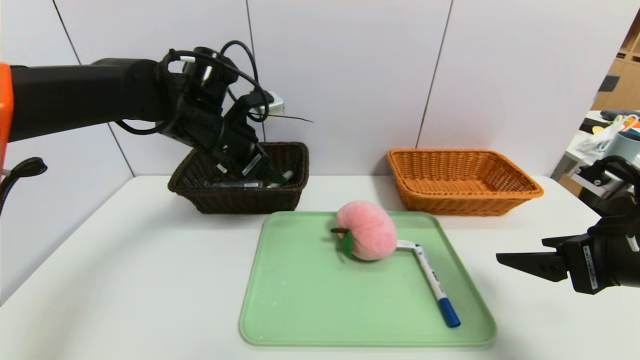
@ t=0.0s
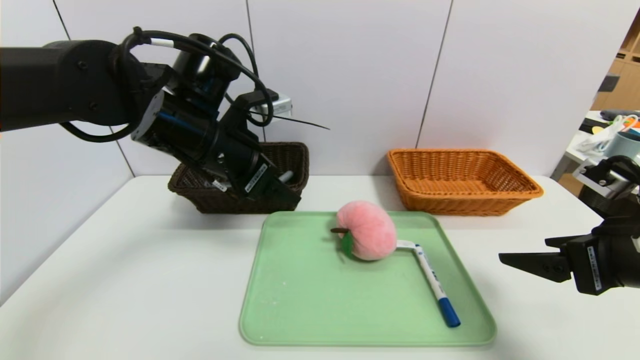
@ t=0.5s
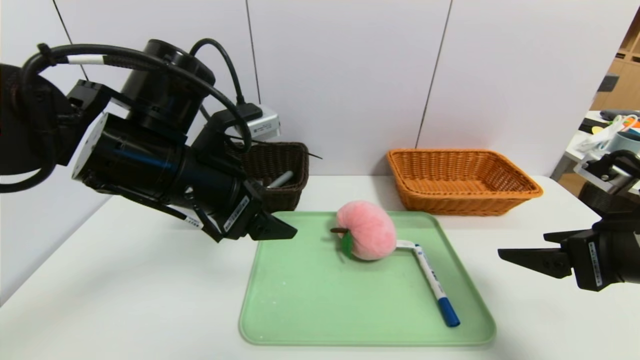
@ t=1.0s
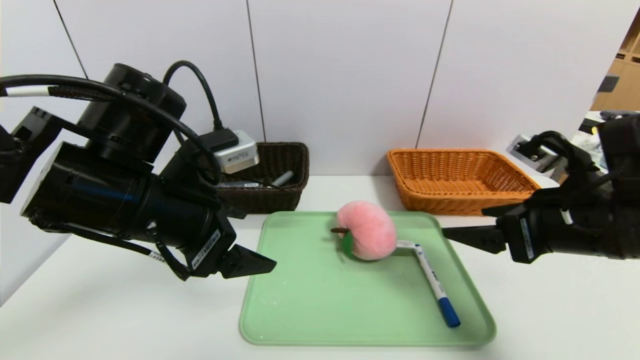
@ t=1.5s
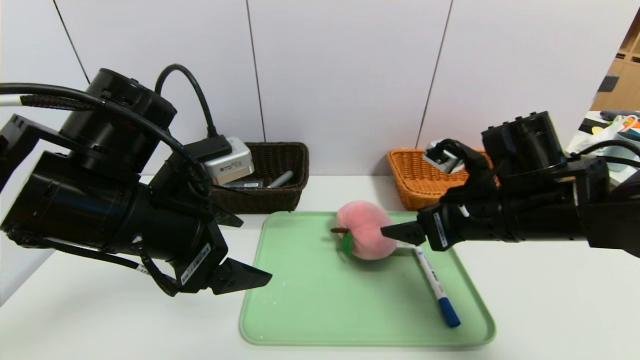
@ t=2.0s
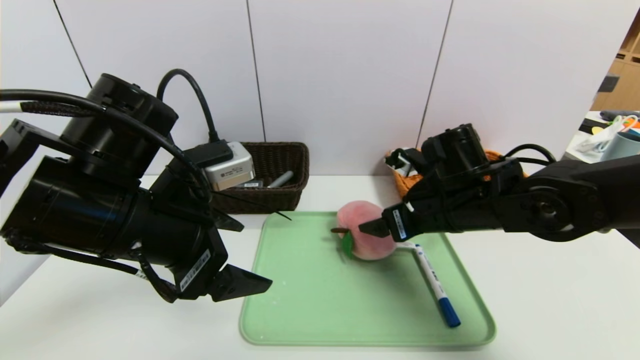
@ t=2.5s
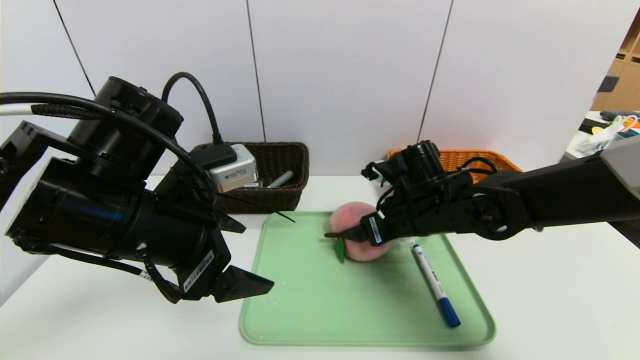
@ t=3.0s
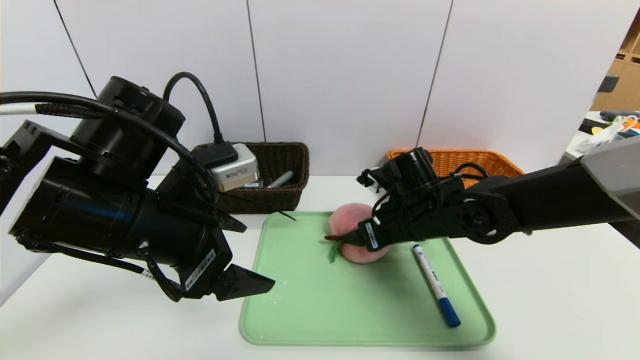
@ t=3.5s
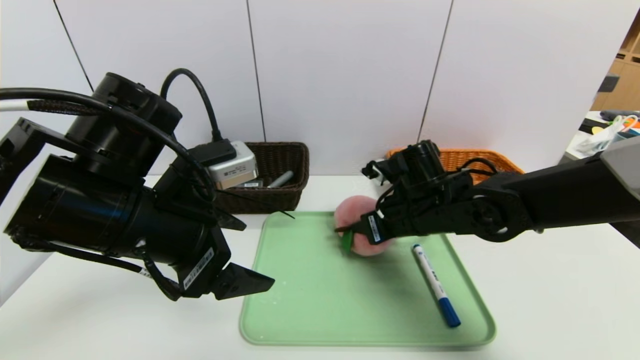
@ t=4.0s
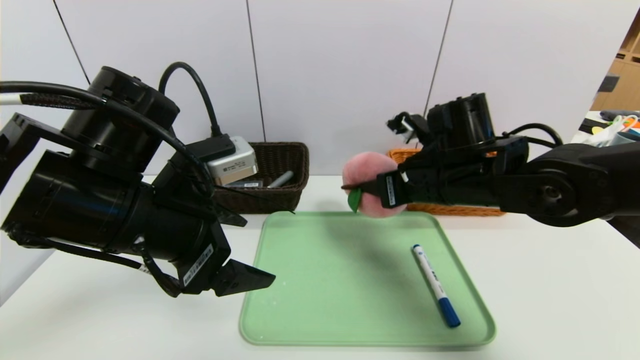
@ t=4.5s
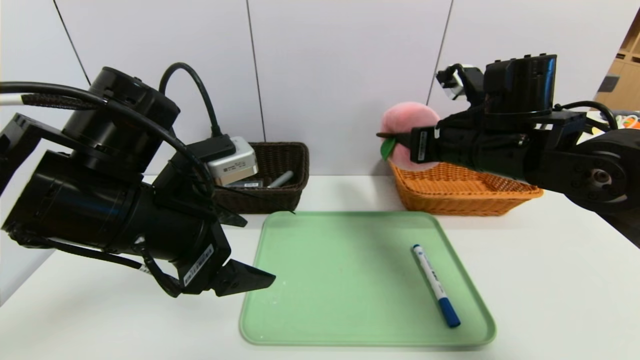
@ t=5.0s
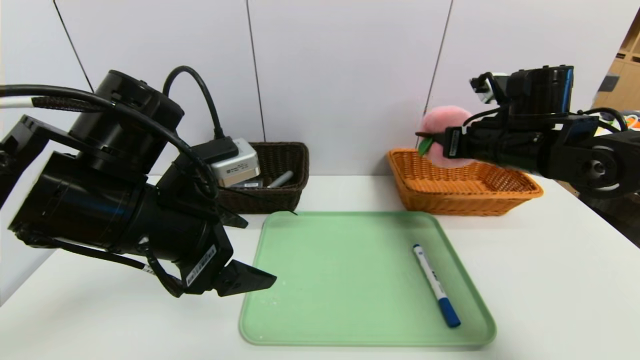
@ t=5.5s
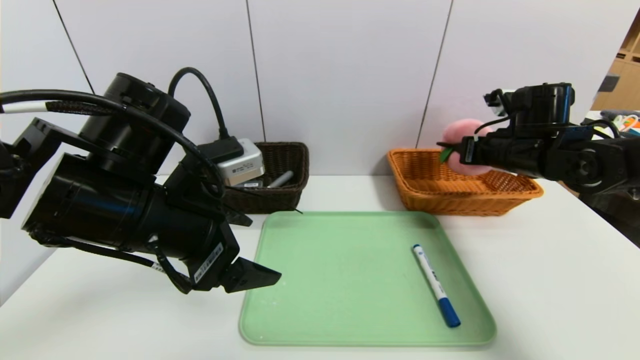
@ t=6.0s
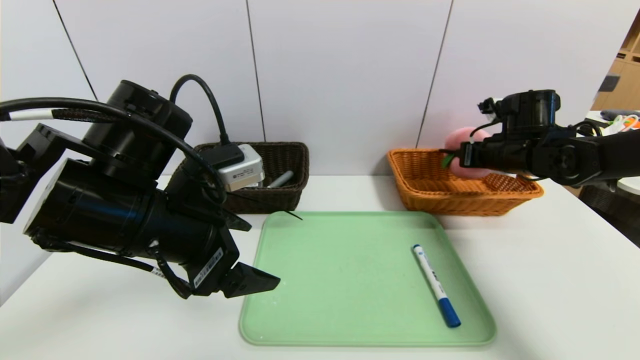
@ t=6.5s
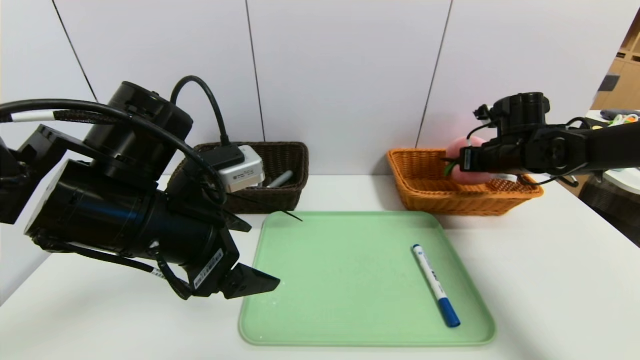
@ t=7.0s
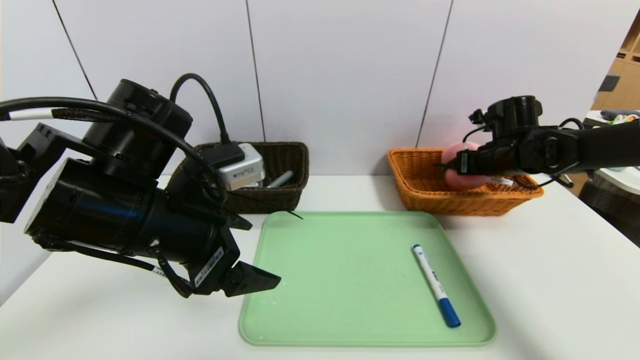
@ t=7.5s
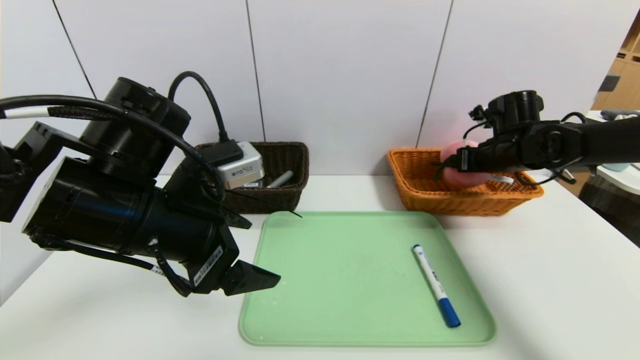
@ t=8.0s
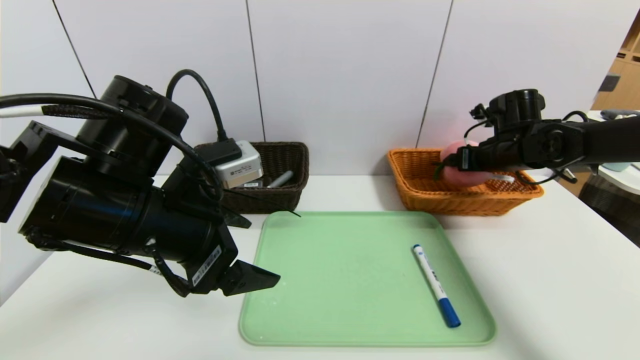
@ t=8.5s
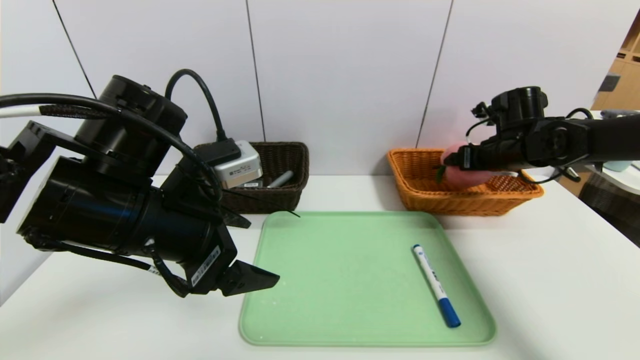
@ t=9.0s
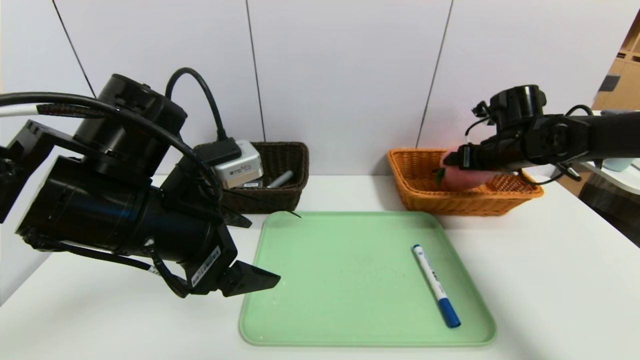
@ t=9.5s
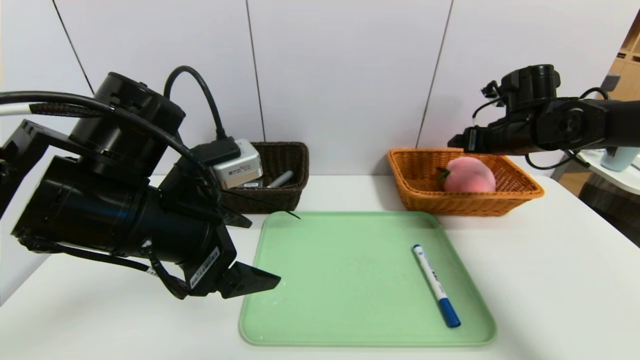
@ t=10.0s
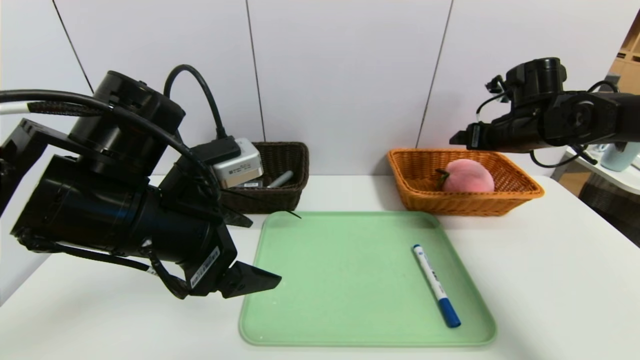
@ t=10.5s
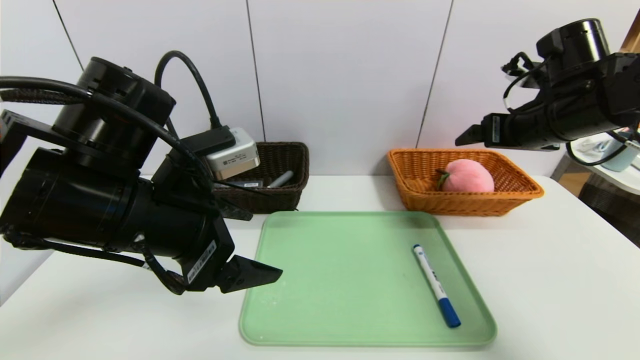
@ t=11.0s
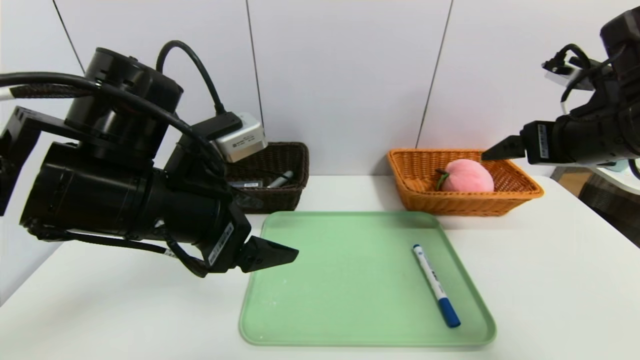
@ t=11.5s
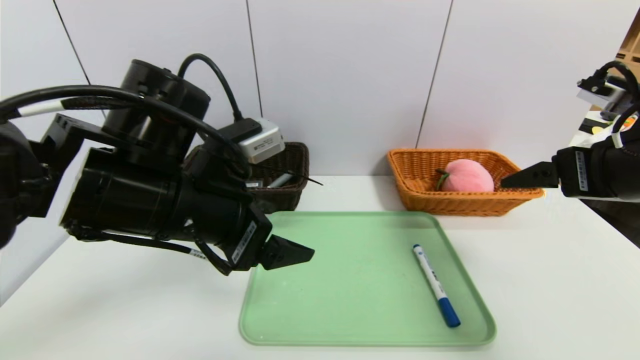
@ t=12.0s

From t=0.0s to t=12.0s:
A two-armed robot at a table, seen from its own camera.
Task of the whole recording: place the food in the right basket with the right gripper, and place the non food items in the left basket with the left gripper.
Step, from t=1.0s to t=11.5s: Grasp the peach doll and put it in the right basket.
From t=0.0s to t=2.0s: The right gripper shifts approximately 15 cm to the left and forward, while the left gripper is displaced backward by approximately 15 cm.
From t=2.0s to t=4.0s: The right gripper goes some 10 cm forward, to the left and downward, and closes its fingers.
From t=4.0s to t=6.0s: The right gripper heads to the right, covering approximately 15 cm.
From t=6.0s to t=8.0s: The right gripper ends up about 5 cm from where it was, and opens.
From t=8.0s to t=10.0s: The grippers make only small movements.
From t=10.0s to t=12.0s: The right gripper moves backward, some 20 cm.

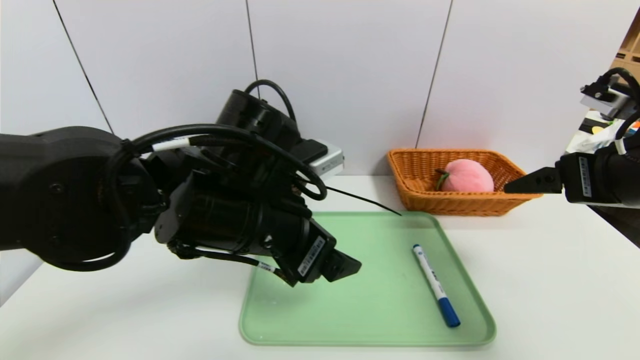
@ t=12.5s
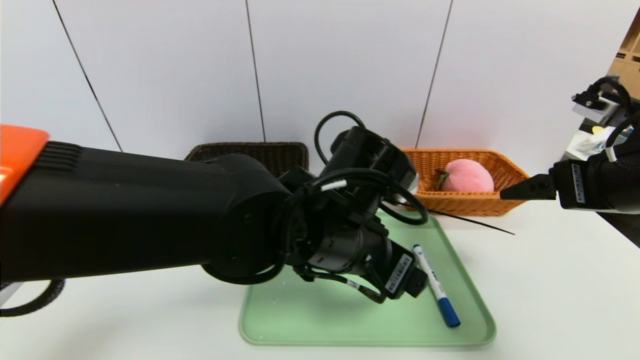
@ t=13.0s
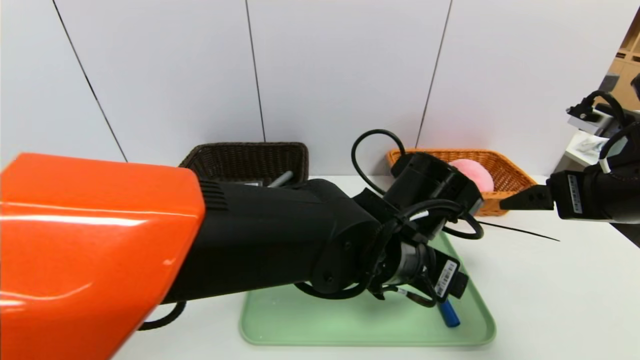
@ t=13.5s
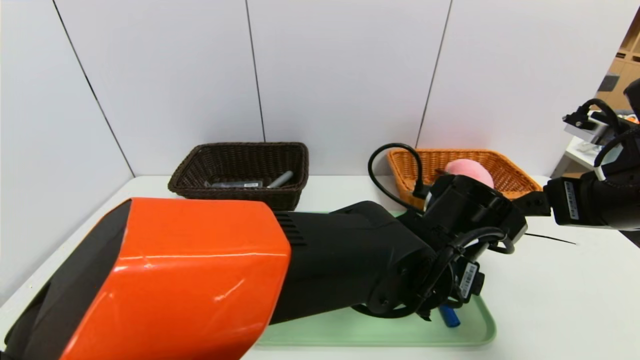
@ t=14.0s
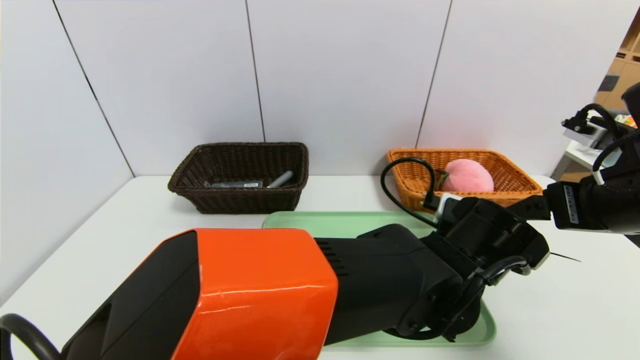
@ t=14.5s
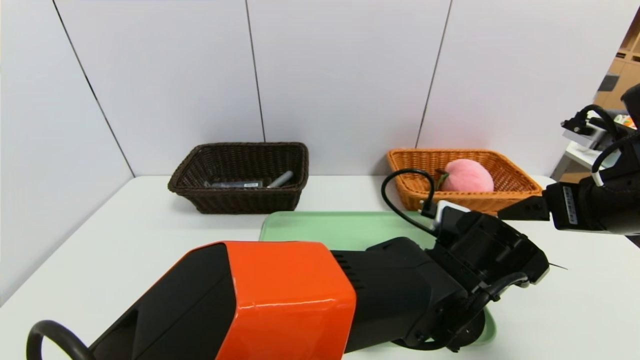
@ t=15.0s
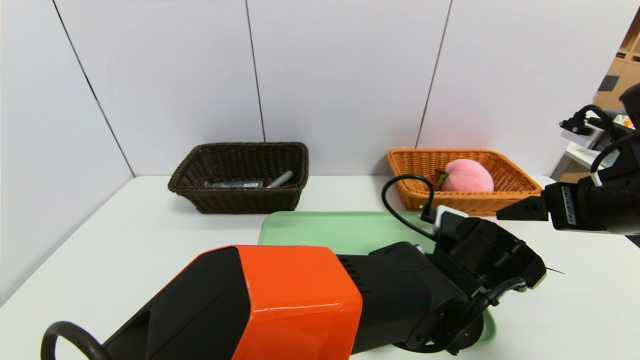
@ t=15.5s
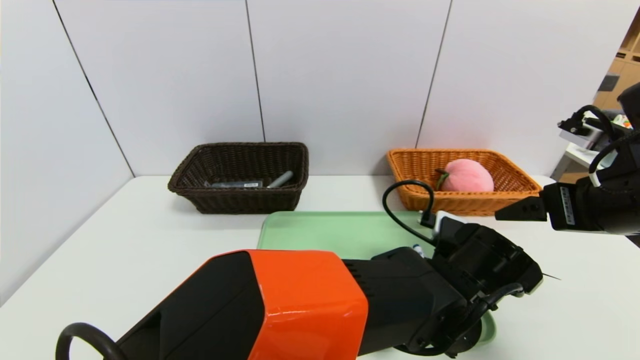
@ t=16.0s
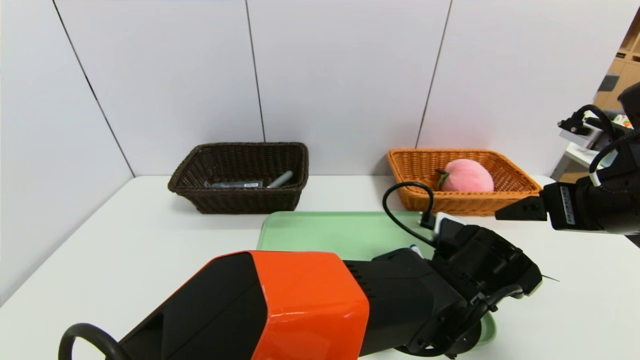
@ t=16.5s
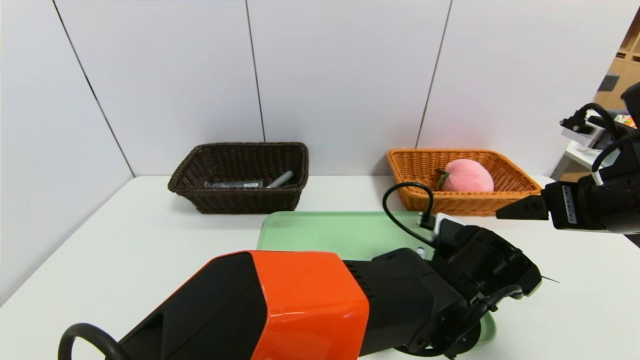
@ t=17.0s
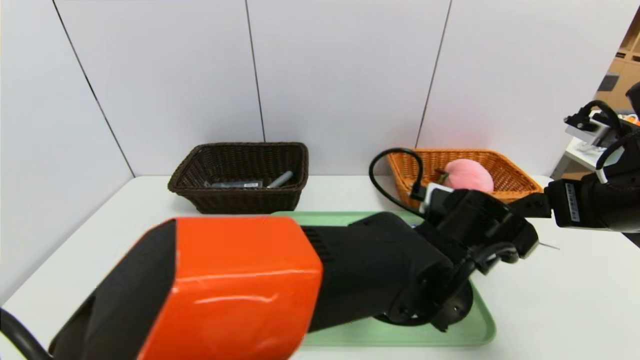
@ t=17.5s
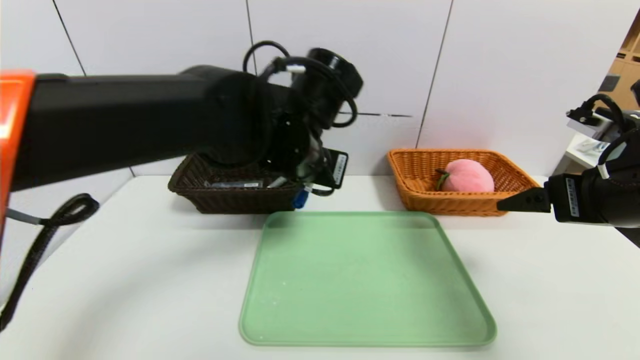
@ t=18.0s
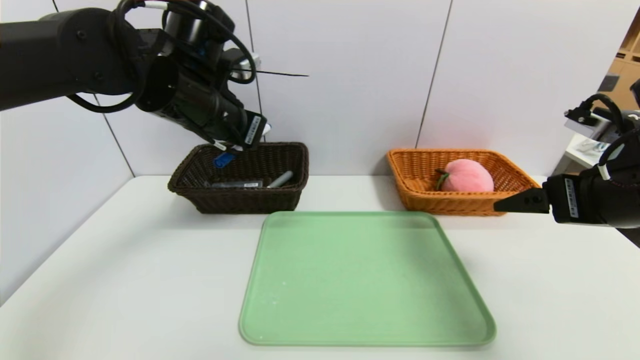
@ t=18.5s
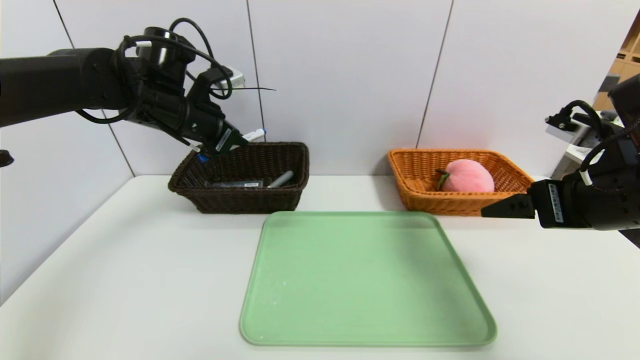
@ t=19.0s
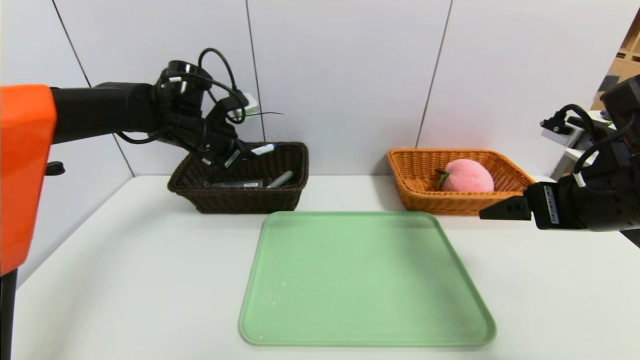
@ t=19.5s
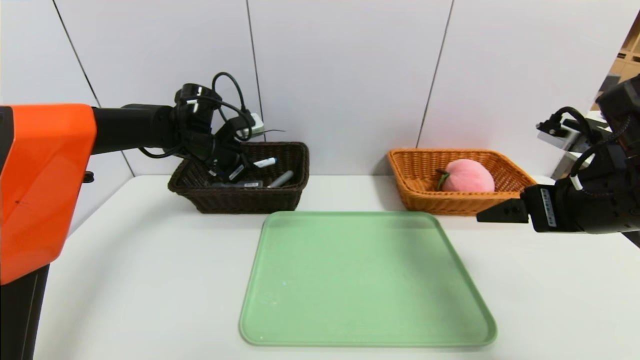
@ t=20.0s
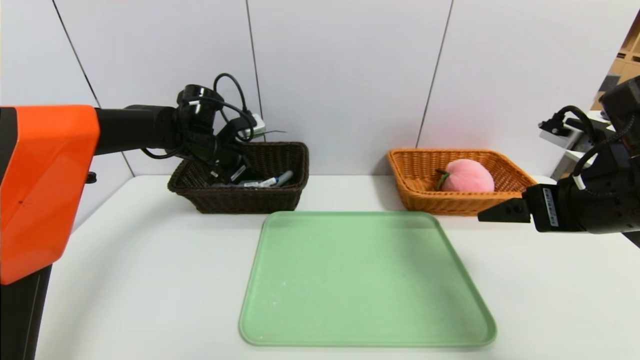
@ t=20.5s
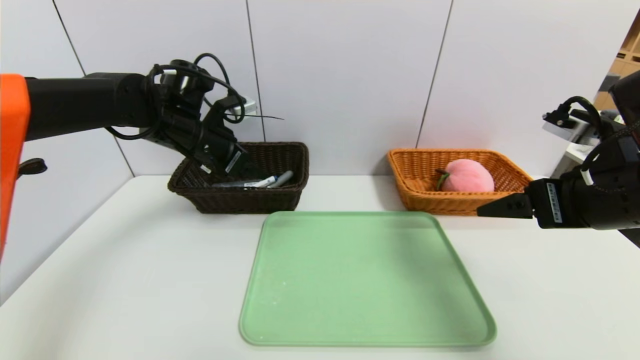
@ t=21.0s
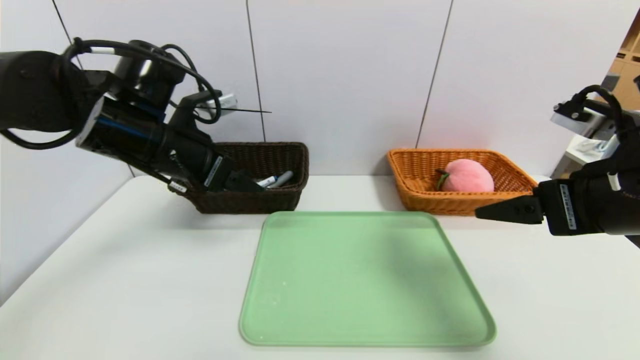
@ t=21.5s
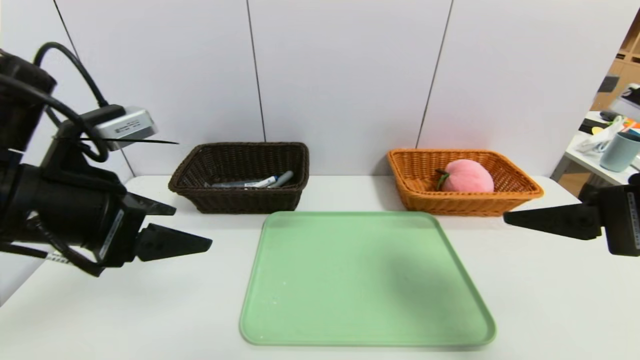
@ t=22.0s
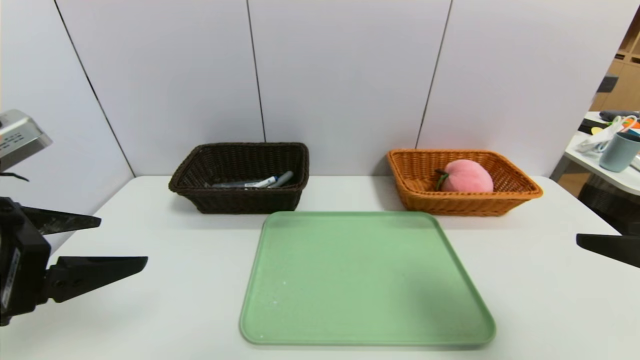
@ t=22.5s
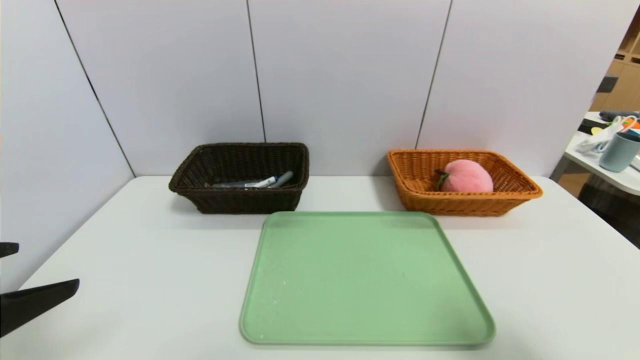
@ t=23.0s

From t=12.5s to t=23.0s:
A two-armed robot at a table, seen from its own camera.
Task of the whole recording: place the food in the right basket with the right gripper, and place the non food items in the left basket with the left gripper.
Step, from t=12.5s to t=21.5s: Grasp the blue marker and put it in the left basket.
From t=12.5s to t=14.5s: The left gripper moves to the right and downward, roughly 20 cm.
From t=14.5s to t=16.5s: The left gripper closes up.
From t=16.5s to t=19.0s: The left gripper heads to the left, forward and upward, covering roughly 40 cm, and closes its fingers.
From t=19.0s to t=21.0s: The left gripper opens its fingers.
From t=21.0s to t=23.0s: The right gripper shifts roughly 15 cm backward. Meanwhile the left gripper travels backward by approximately 35 cm.
